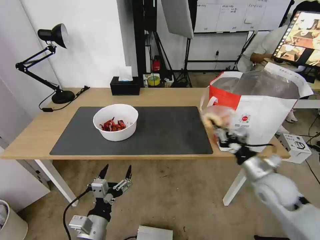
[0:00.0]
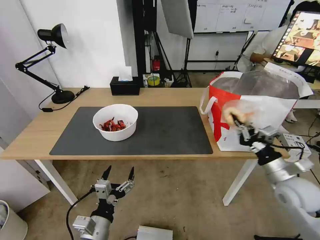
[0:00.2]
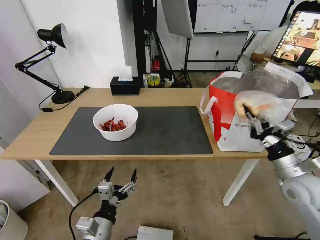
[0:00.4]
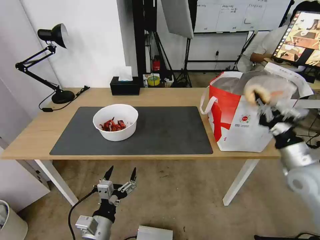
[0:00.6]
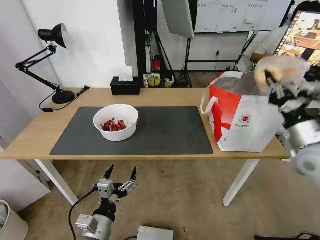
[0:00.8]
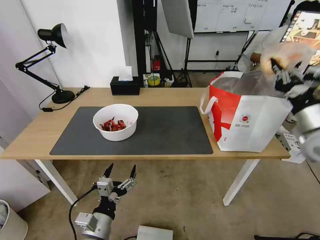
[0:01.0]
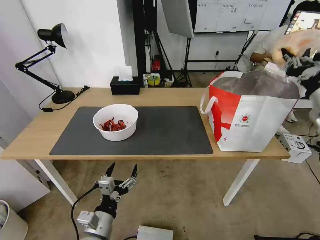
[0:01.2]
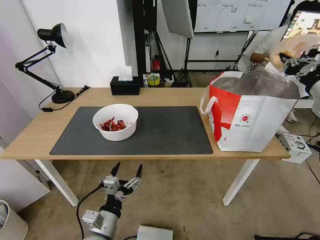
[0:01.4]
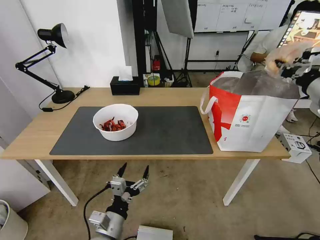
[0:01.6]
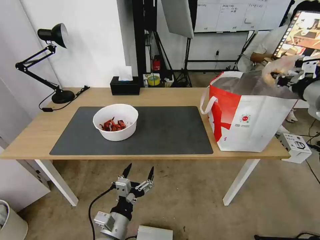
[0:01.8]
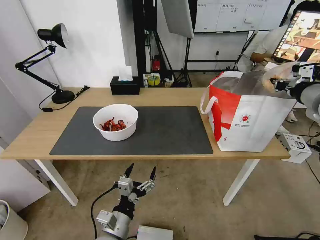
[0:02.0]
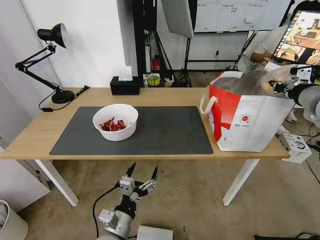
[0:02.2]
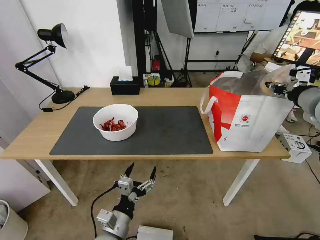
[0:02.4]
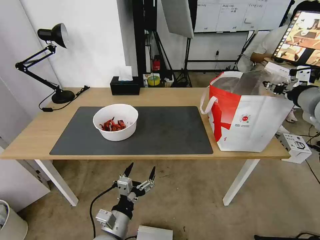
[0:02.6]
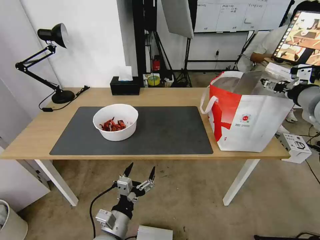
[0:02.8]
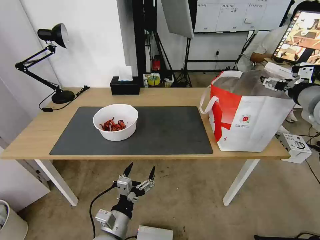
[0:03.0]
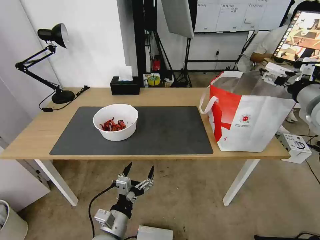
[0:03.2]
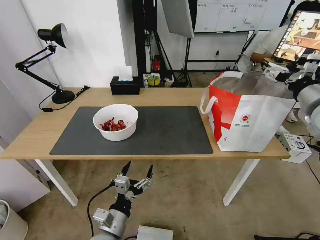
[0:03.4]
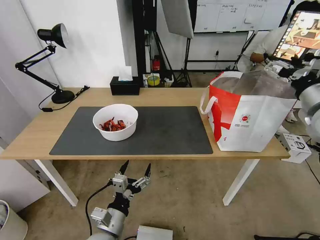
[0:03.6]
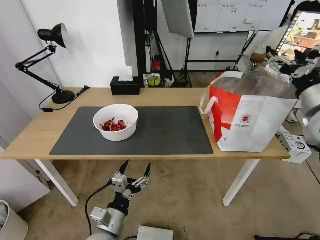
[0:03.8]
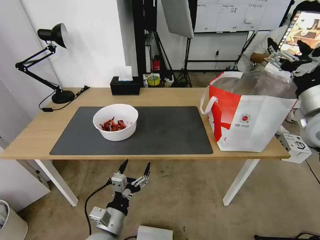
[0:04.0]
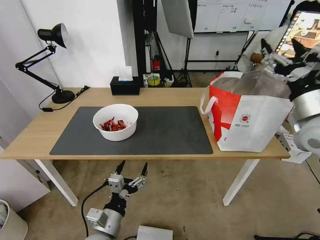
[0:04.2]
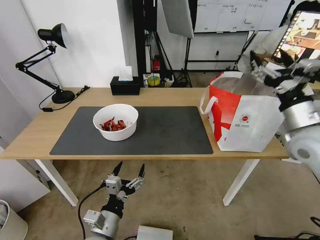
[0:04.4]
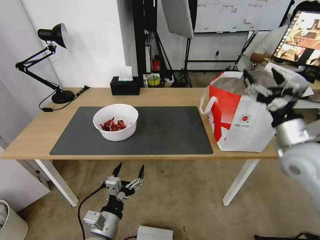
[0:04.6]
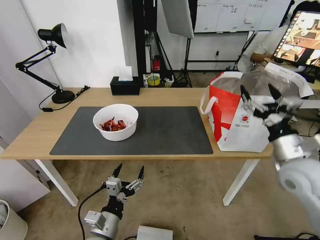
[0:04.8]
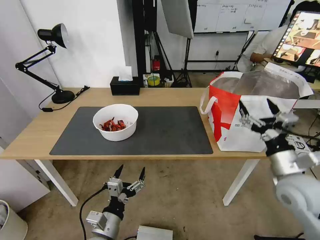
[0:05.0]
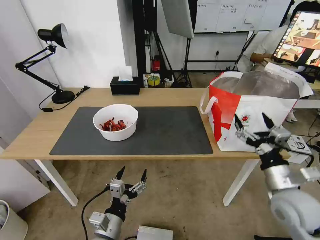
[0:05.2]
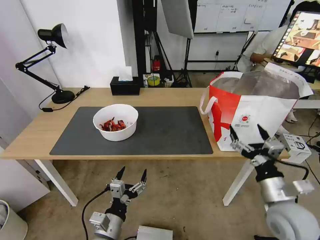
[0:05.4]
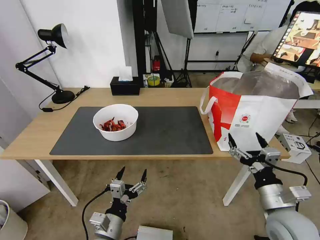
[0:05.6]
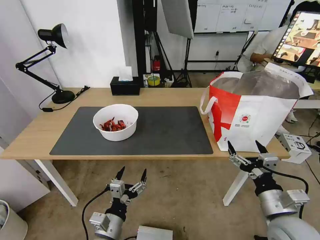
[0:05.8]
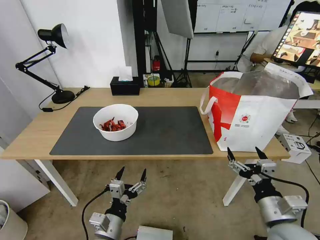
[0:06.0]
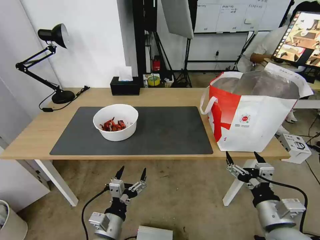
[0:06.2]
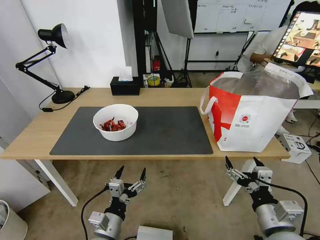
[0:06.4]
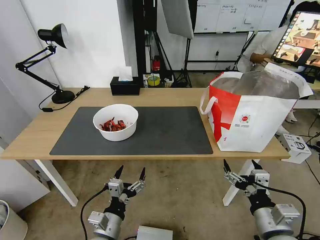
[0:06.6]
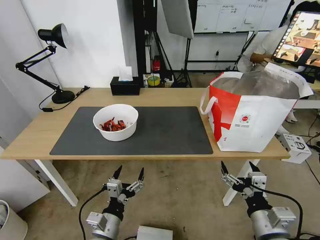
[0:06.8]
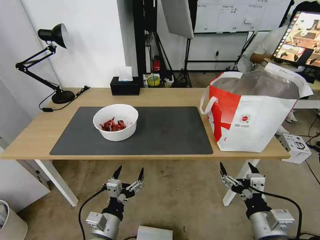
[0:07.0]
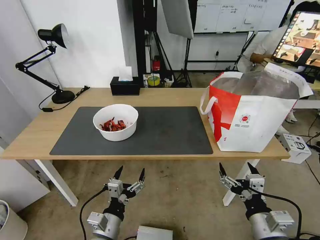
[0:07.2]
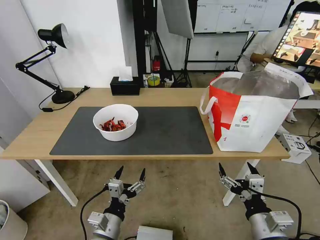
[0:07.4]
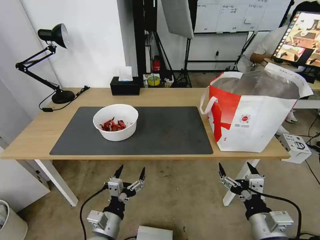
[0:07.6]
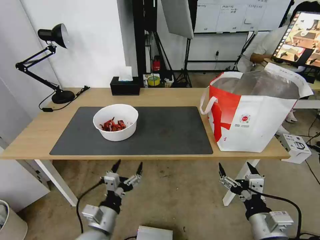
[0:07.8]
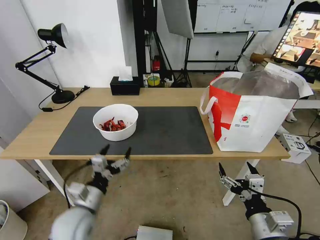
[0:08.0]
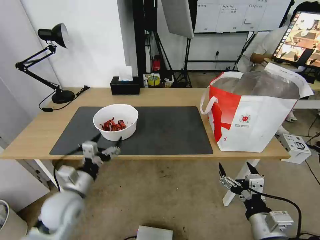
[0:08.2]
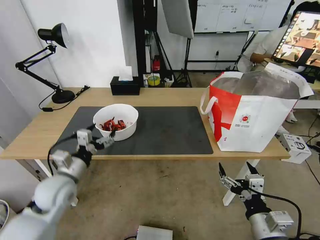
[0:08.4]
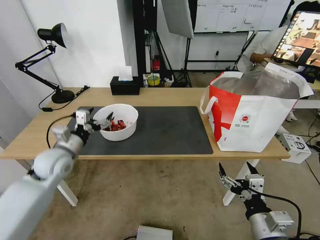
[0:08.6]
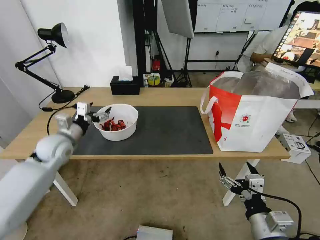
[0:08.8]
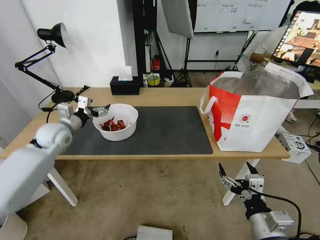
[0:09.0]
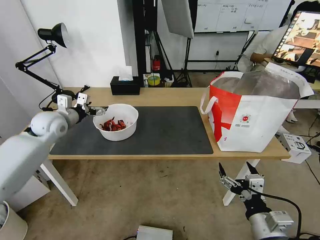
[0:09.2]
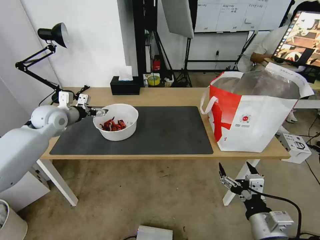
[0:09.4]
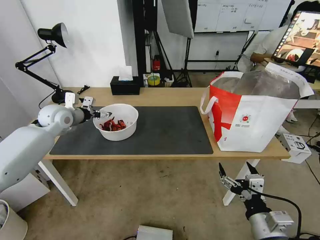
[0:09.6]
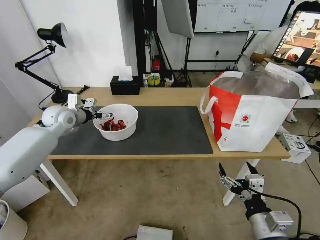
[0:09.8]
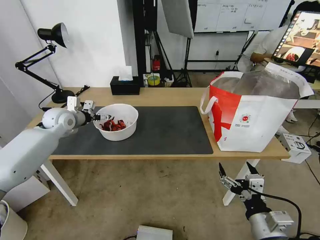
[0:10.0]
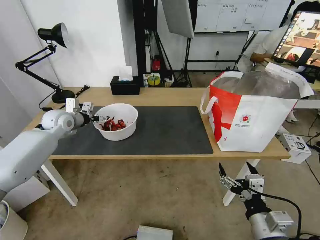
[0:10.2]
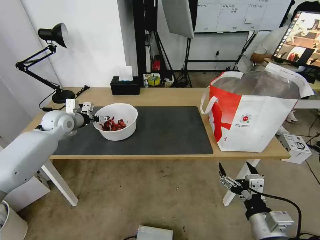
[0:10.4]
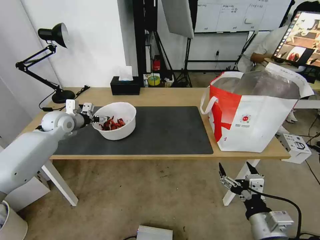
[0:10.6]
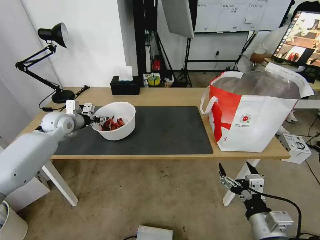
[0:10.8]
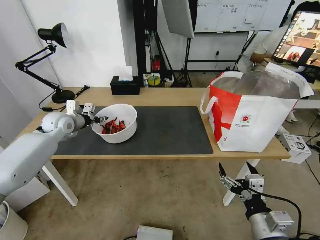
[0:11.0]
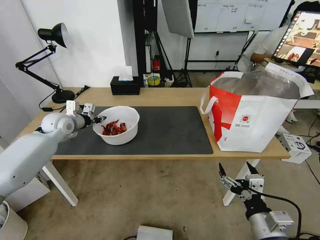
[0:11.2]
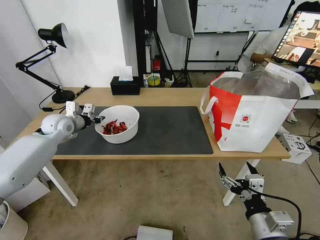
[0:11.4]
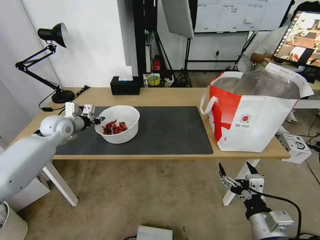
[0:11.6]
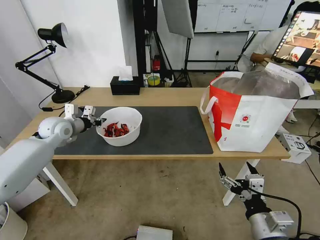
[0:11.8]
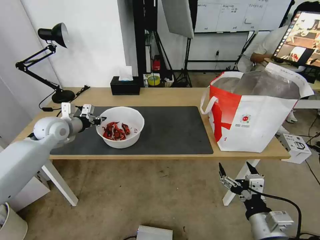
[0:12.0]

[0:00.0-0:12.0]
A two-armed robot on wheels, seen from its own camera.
Task of the whole recording: Pick up the trash from the table and place it into the takeout bag.
0:00.0 to 0:01.6: The right gripper heads upward and to the right, covering about 25 cm.
0:01.6 to 0:03.0: The right gripper opens up.
0:03.0 to 0:04.4: The right gripper is displaced downward, to the left and backward by approximately 10 cm.
0:04.4 to 0:06.0: The right gripper is displaced backward and downward by roughly 25 cm.
0:06.0 to 0:07.6: The right gripper moves approximately 5 cm.
0:07.6 to 0:09.0: The left gripper goes roughly 40 cm forward, to the left and upward.
0:09.0 to 0:10.4: The left gripper shifts some 5 cm forward.
0:10.4 to 0:12.0: The left gripper is displaced backward by roughly 5 cm, and closes up.

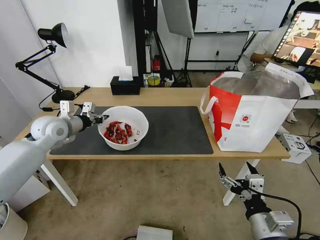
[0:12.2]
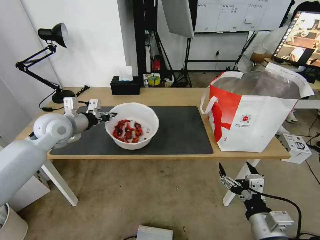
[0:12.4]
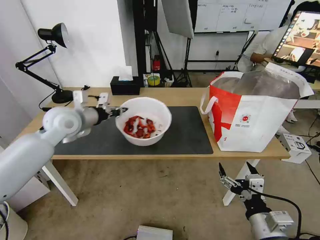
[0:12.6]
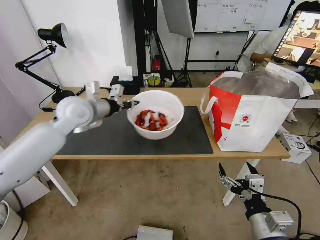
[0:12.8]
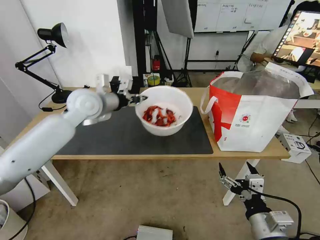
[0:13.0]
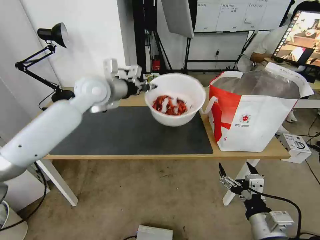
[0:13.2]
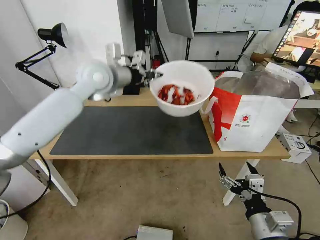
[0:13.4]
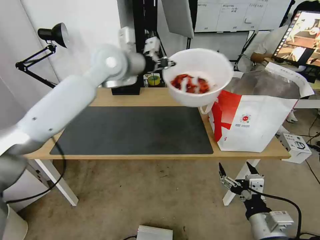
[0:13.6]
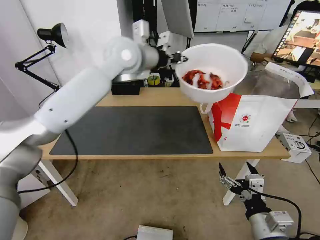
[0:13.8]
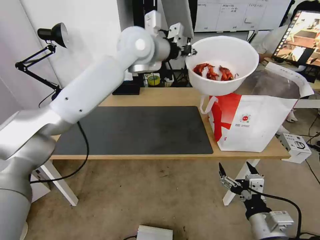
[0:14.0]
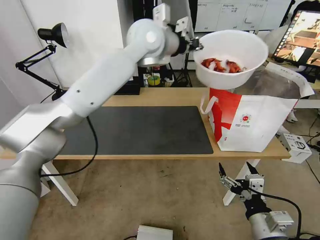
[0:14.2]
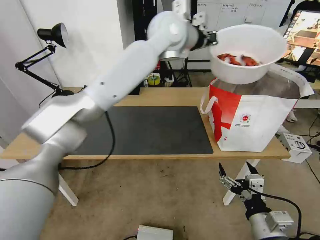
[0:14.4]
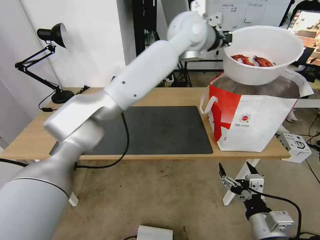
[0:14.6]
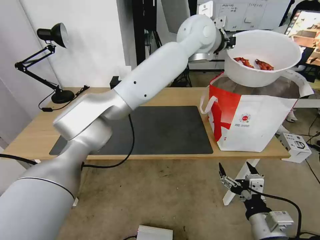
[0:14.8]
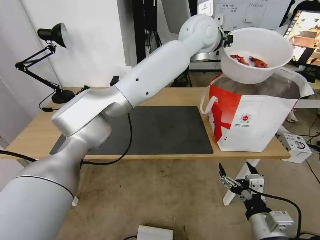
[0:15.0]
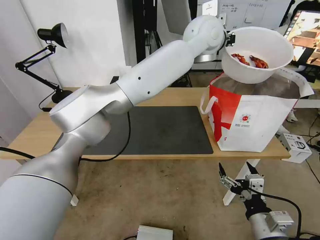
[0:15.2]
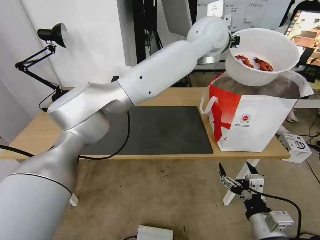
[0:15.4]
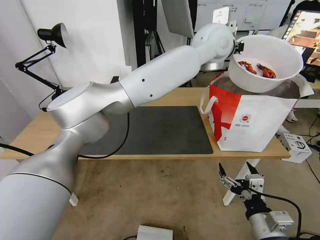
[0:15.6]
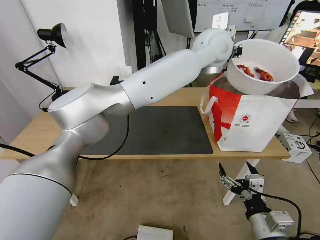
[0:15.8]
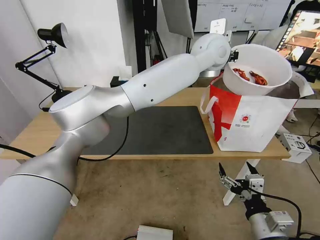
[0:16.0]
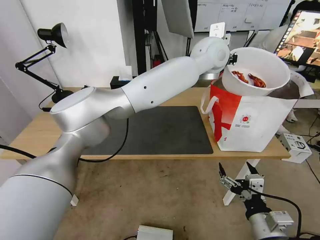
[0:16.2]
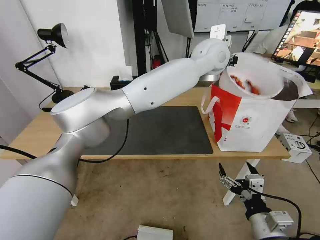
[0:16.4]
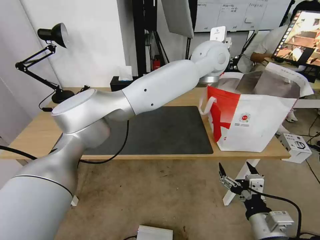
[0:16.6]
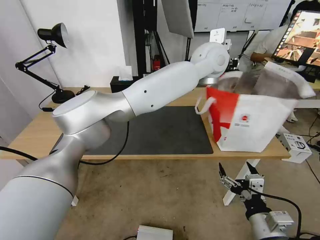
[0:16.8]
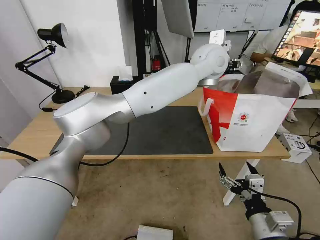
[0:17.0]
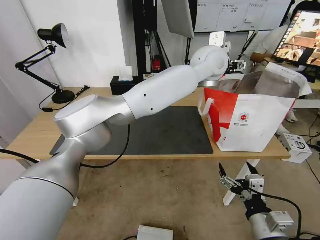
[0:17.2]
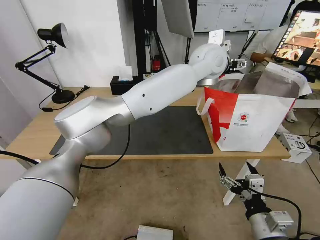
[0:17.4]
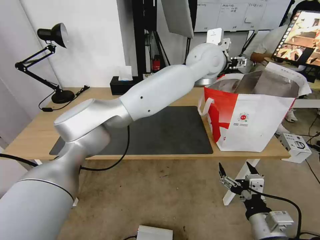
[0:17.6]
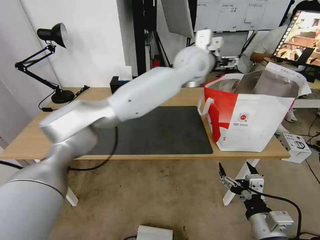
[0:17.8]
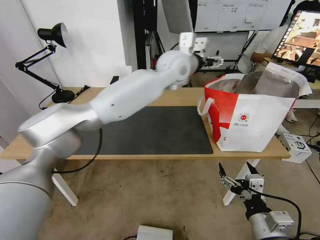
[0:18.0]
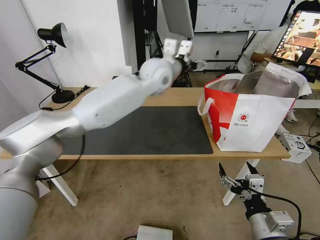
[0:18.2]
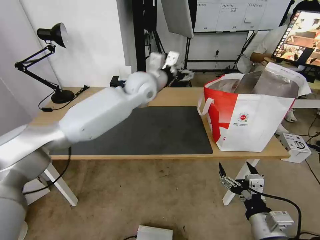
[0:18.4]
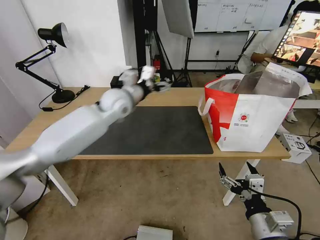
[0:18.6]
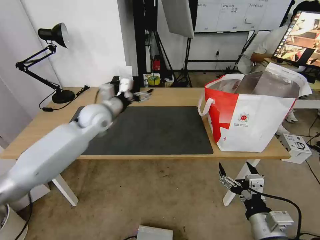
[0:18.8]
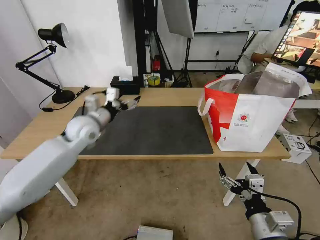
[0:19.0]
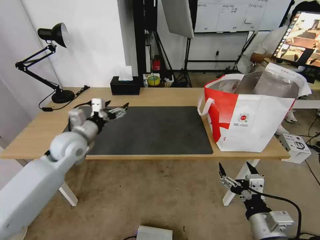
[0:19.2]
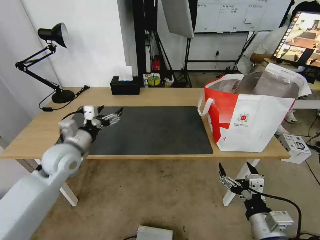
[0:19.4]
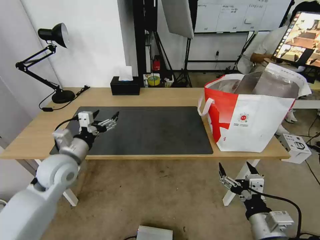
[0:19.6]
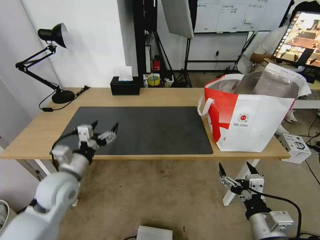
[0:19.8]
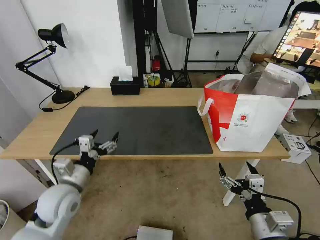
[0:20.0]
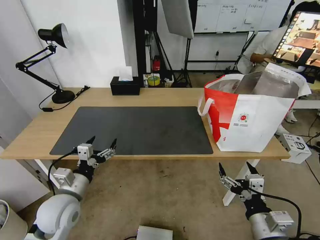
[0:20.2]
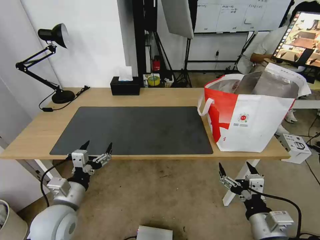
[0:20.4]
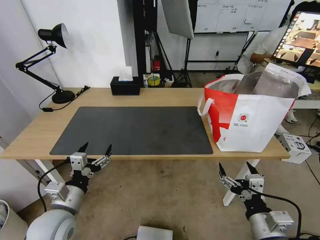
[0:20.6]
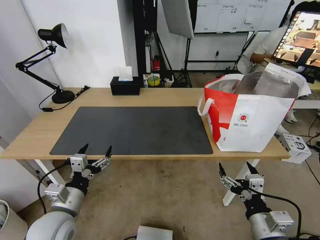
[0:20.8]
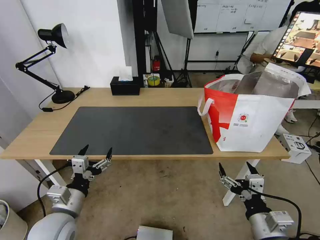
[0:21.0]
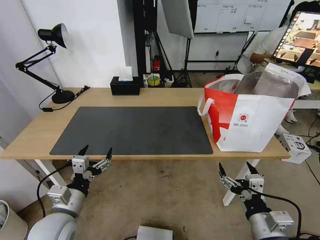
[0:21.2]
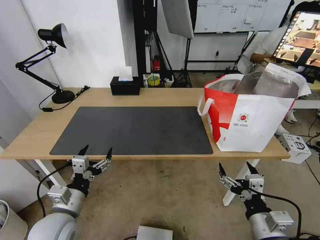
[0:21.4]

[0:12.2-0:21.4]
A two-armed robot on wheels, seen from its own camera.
Task of the whole recording: Pick up the trash from the table and place it into the takeout bag.
0:12.2 to 0:13.8: The left gripper heads to the right and upward, covering approximately 35 cm.
0:13.8 to 0:15.2: The left gripper is displaced to the right by about 20 cm.
0:15.2 to 0:16.8: The left gripper goes approximately 5 cm downward, and opens.
0:16.8 to 0:18.4: The left gripper goes about 20 cm to the left and downward, and opens.
0:18.4 to 0:19.8: The left gripper goes approximately 35 cm backward, to the left and downward.
0:19.8 to 0:21.4: The left gripper heads backward, covering about 10 cm.
